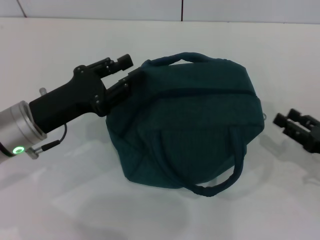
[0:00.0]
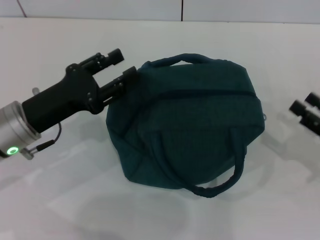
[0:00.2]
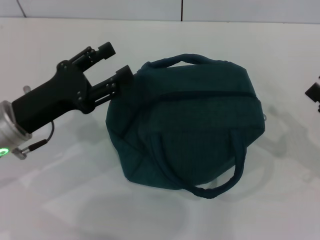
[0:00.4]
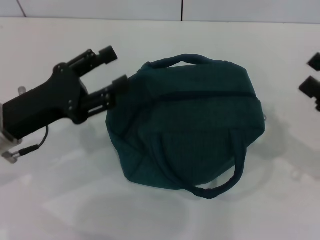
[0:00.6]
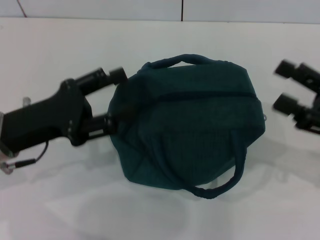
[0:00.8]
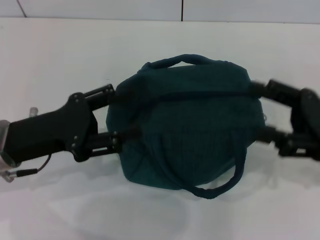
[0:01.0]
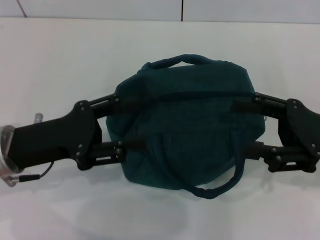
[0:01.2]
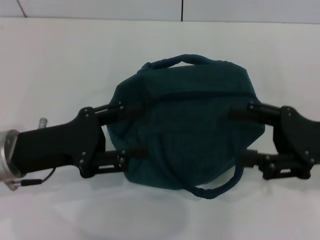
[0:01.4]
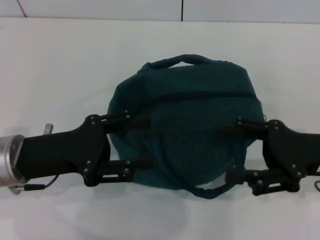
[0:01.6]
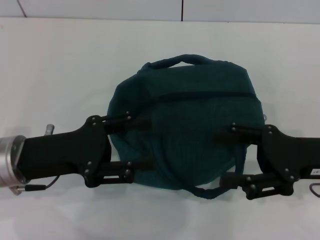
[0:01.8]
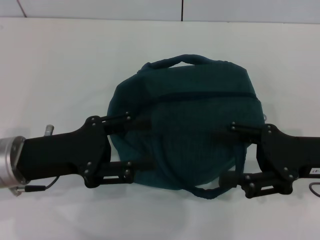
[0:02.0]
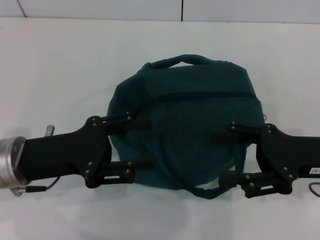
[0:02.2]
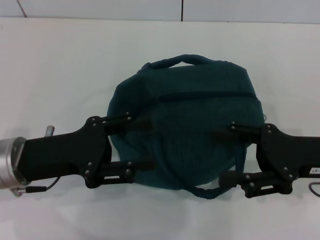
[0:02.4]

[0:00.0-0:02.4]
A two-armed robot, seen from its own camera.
Step, 0:00.0 to 0:00.2: Hold the lunch bag with your left hand.
0:00.0 to 0:01.2: The left gripper opens up; the right gripper goes some 10 cm upward and to the left, and opens its fingers.
0:01.2 to 0:02.4: The grippers make only small movements.
